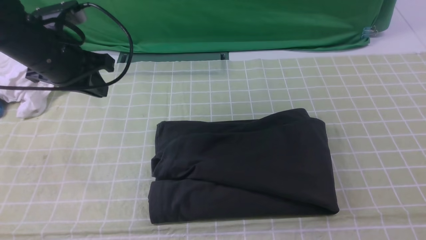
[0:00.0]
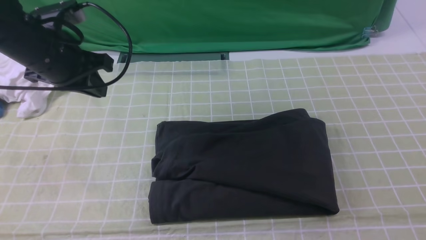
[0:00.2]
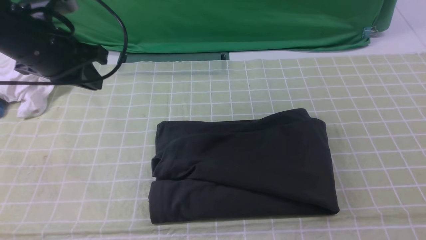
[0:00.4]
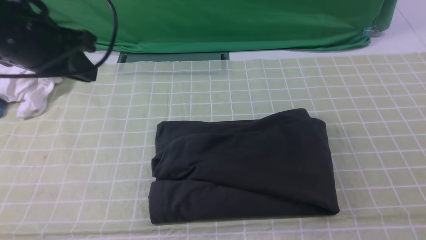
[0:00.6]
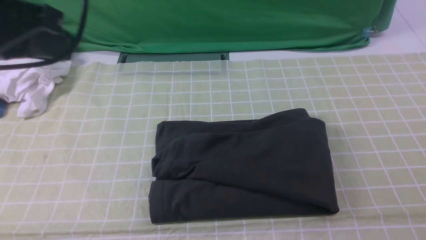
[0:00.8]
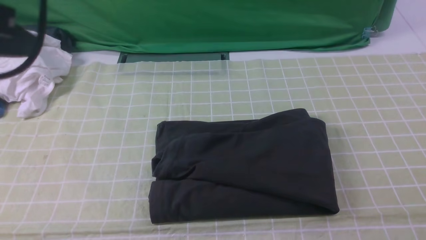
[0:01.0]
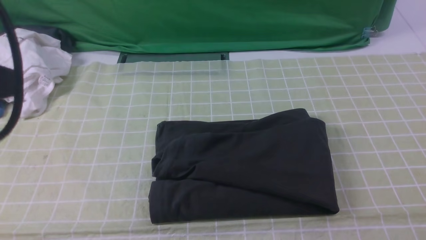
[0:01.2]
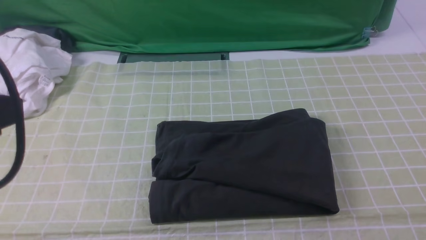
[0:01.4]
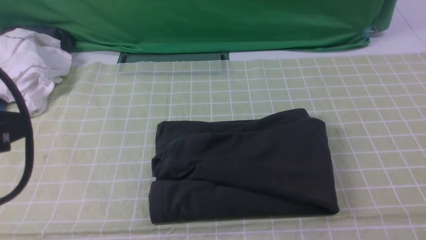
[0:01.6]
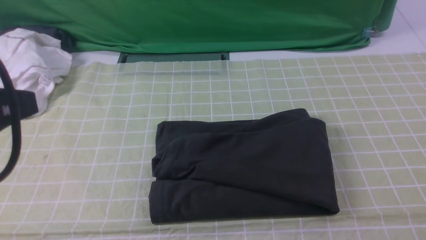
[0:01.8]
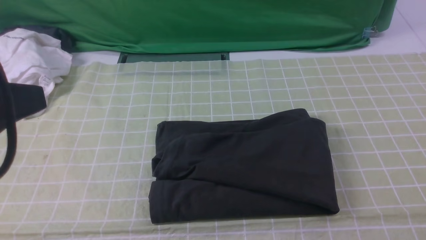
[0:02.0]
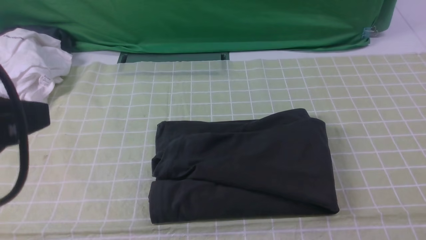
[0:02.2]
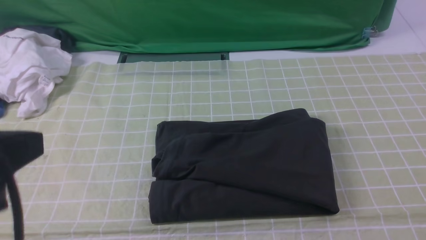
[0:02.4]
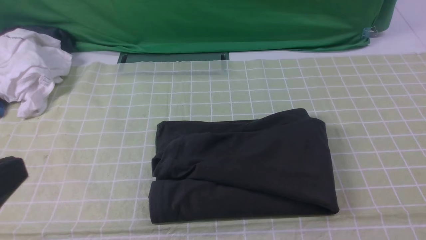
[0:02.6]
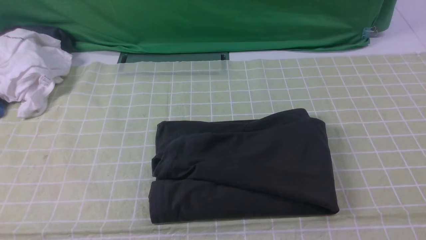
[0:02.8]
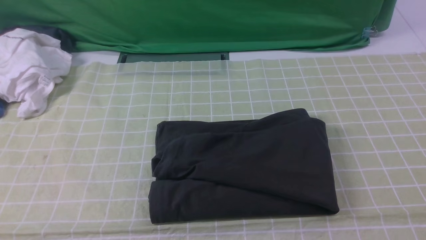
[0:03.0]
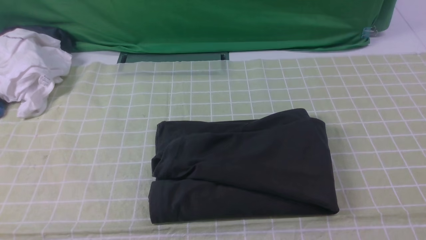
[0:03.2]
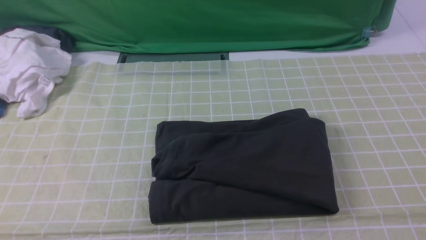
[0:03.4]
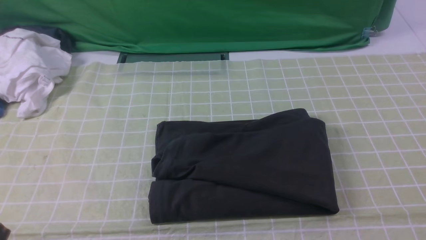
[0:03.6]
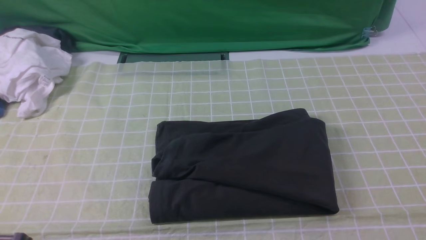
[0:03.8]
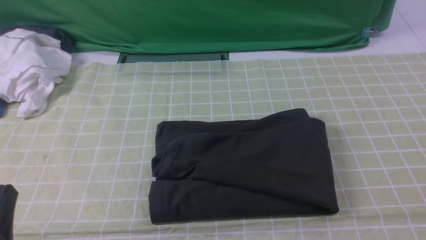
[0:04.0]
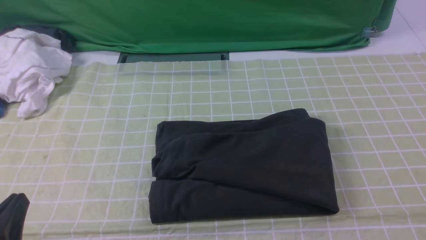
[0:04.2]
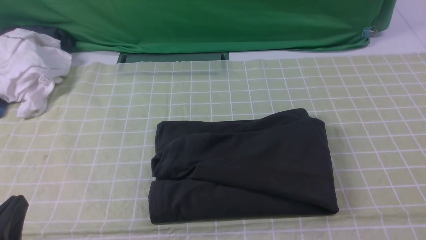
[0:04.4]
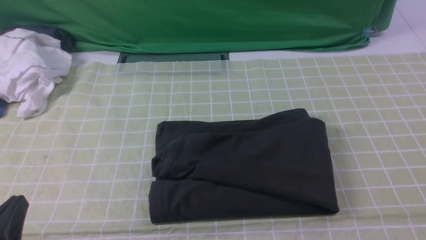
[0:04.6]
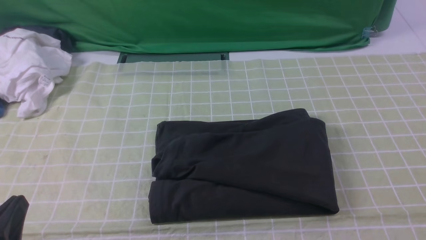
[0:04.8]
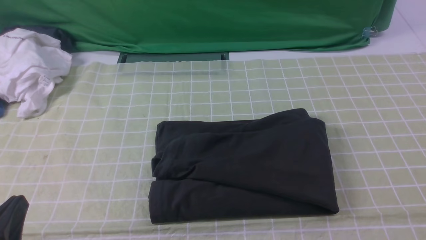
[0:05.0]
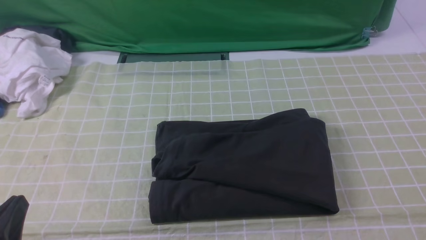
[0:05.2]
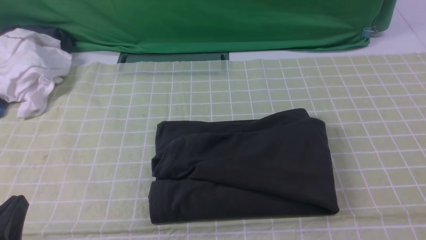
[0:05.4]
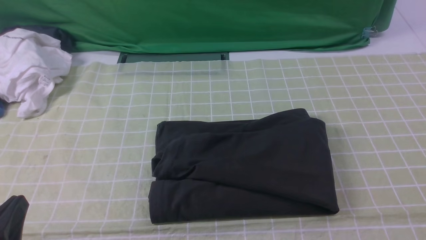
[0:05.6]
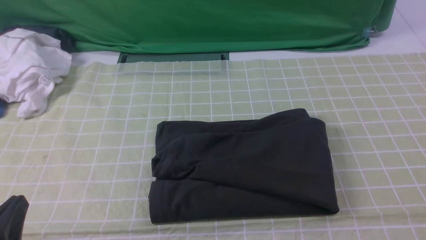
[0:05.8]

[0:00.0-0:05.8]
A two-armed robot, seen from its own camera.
0:00.0 to 0:01.4: The left gripper moves backward and upward, roughly 25 cm.
0:01.4 to 0:02.8: The left gripper is displaced backward and downward by about 10 cm.
0:02.8 to 0:04.4: The left gripper shifts about 15 cm downward.
0:04.4 to 0:05.8: Neither gripper changes place.
